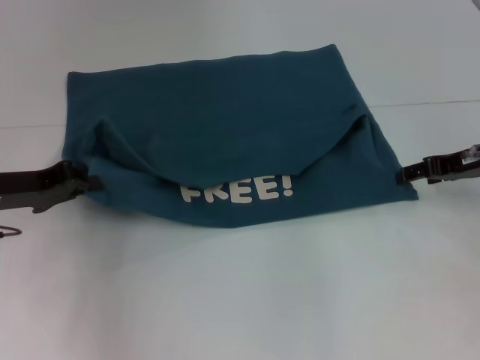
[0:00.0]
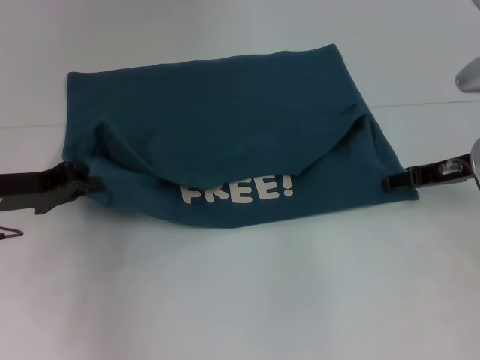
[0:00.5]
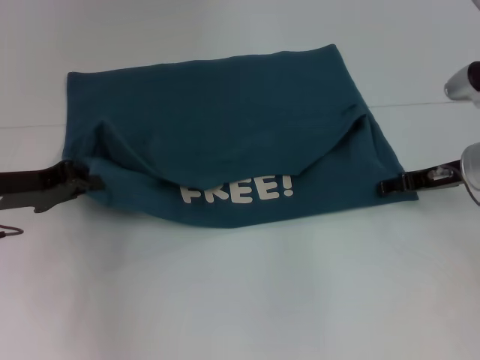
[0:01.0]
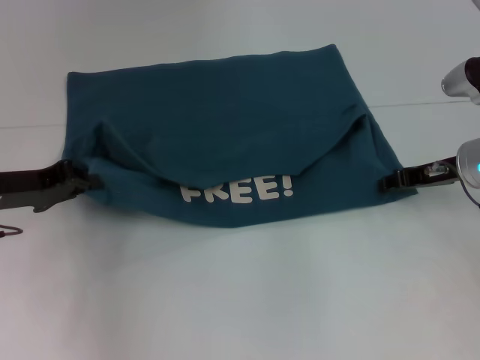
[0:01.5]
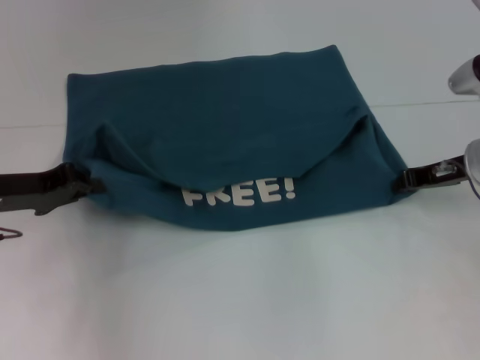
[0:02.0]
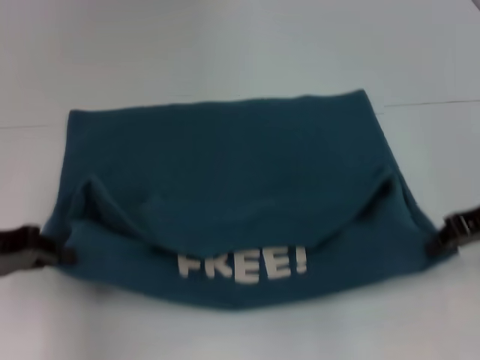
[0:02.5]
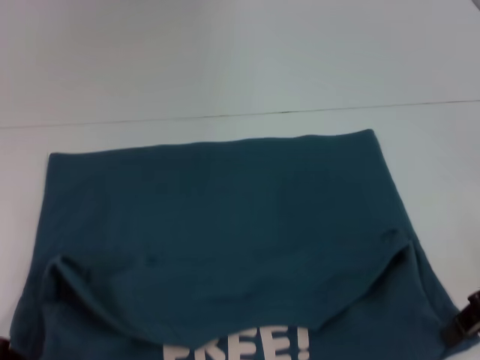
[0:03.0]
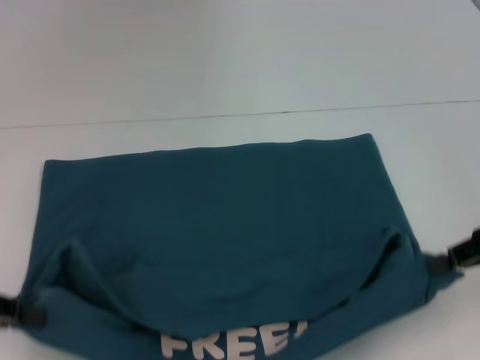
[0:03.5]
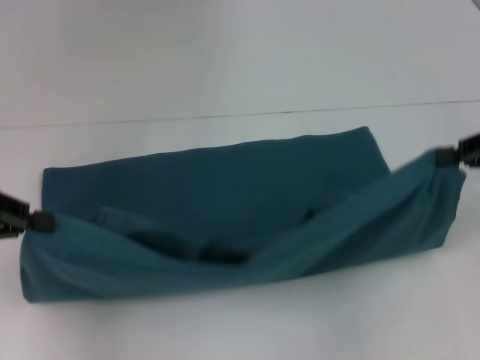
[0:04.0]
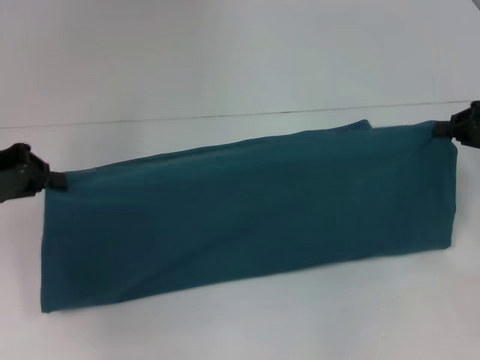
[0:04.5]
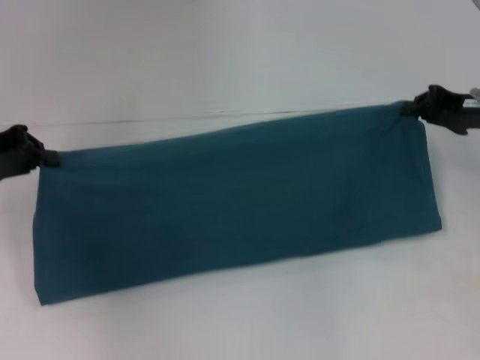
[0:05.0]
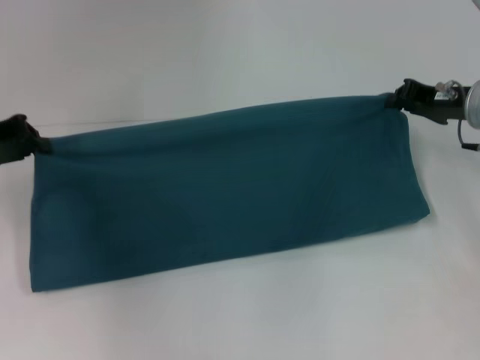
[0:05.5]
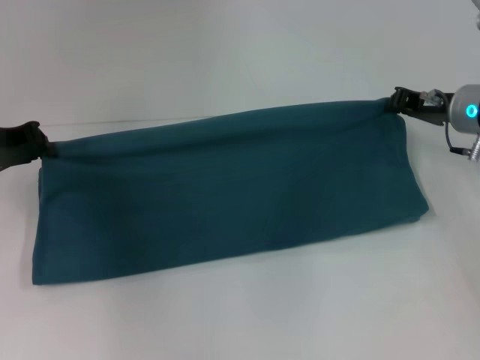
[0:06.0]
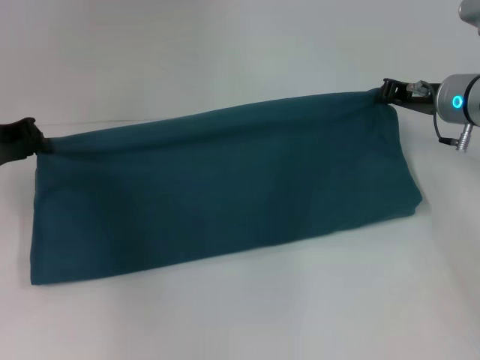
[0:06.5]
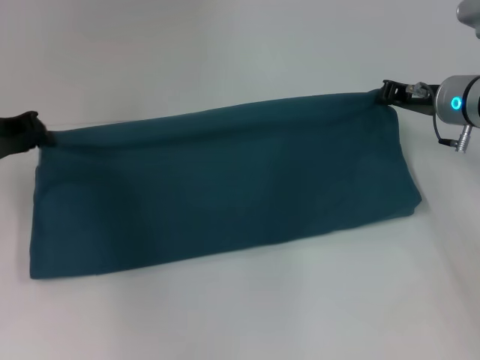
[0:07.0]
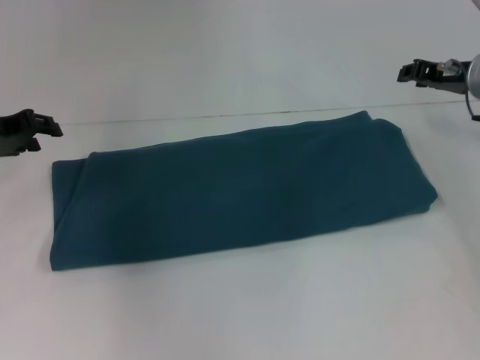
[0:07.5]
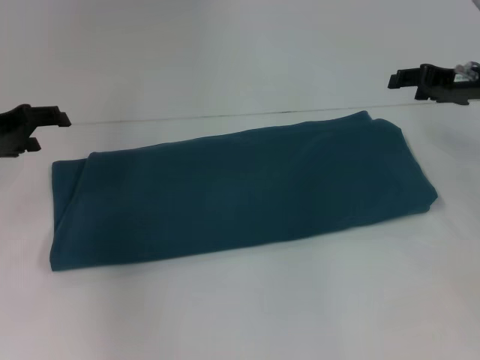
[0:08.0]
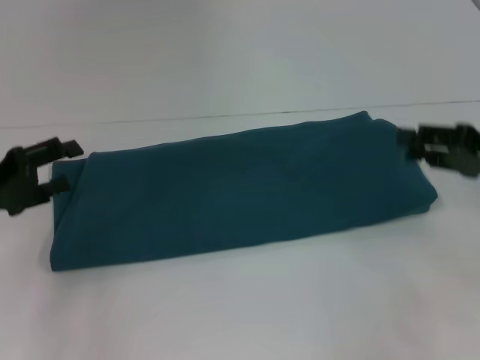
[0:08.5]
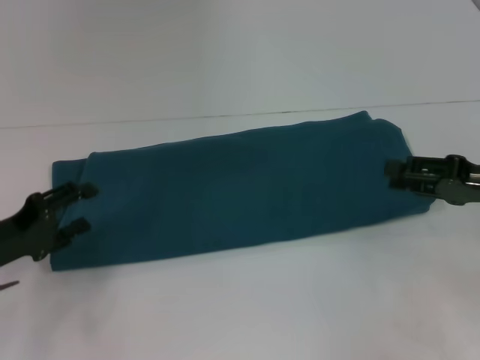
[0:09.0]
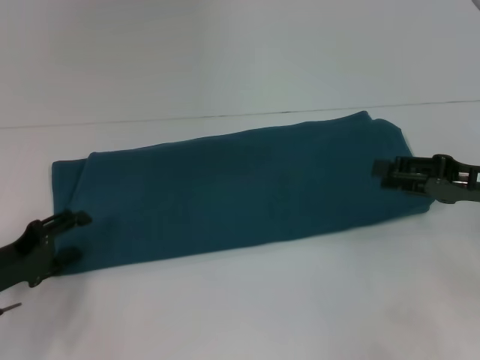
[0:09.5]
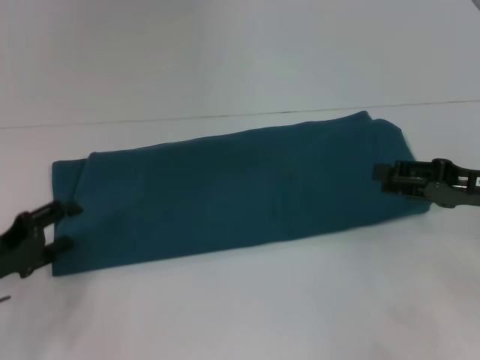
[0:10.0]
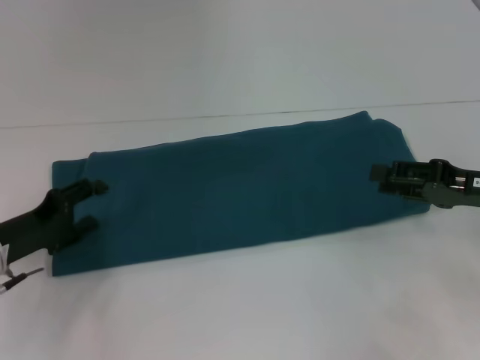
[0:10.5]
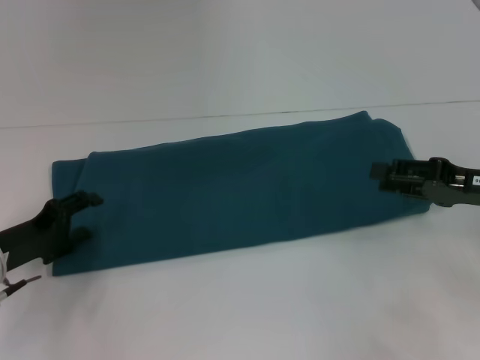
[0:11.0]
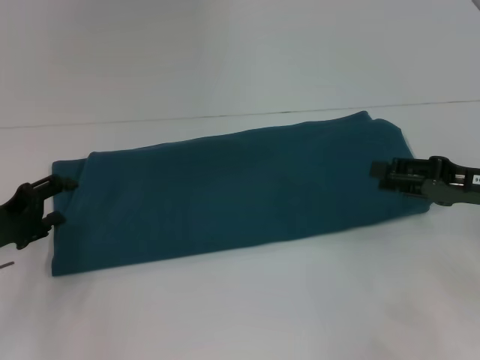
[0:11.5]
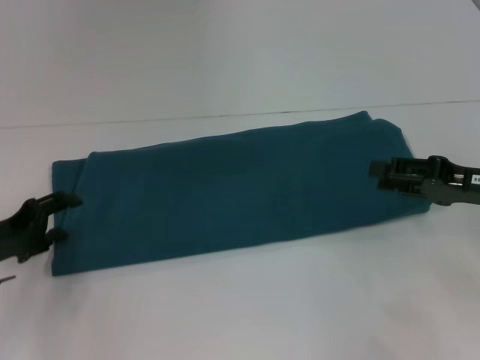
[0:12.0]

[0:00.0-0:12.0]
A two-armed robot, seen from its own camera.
Step, 0:00.0 to 0:03.0: Pull the clothes with your left hand.
Step, 0:00.0 to 0:03.0: Pull the clothes with your right hand.
Step, 0:03.5 to 0:07.5: Fold the clothes to the right.
0:00.0 to 0:02.0: The right gripper closes up.
0:02.0 to 0:04.0: The right gripper goes approximately 15 cm upward, to the right and backward; the left gripper moves upward, backward and to the left, roughly 10 cm.
0:04.0 to 0:06.0: The right gripper goes about 15 cm forward, to the left and downward. The left gripper moves forward, some 10 cm.
0:06.0 to 0:08.0: The right gripper moves some 5 cm, and opens up. Meanwhile the left gripper opens.
0:08.0 to 0:10.0: The grippers both shift backward and downward by approximately 15 cm.
0:10.0 to 0:12.0: There are only small adjustments of the grippers.

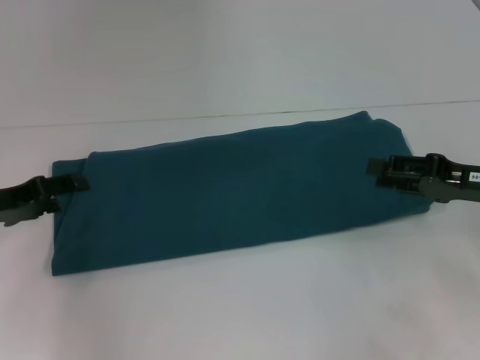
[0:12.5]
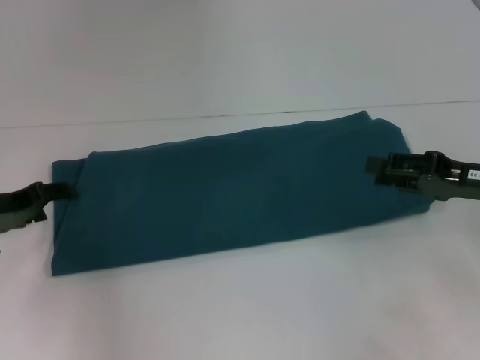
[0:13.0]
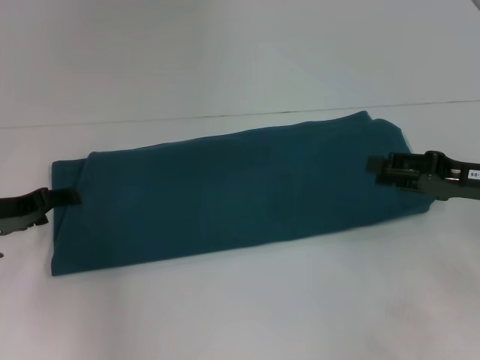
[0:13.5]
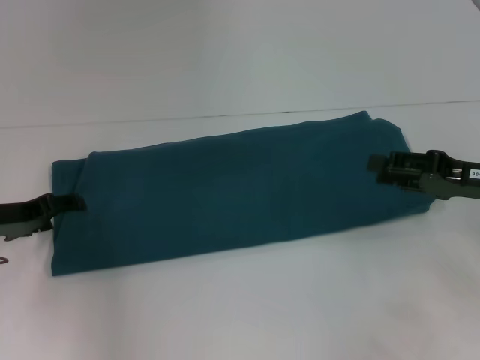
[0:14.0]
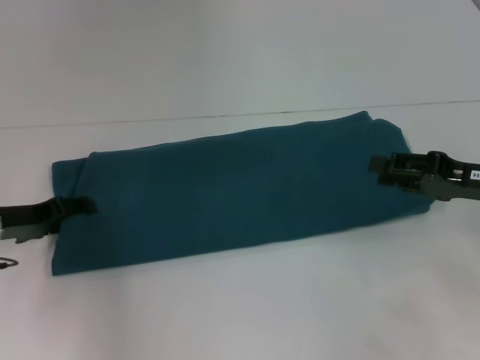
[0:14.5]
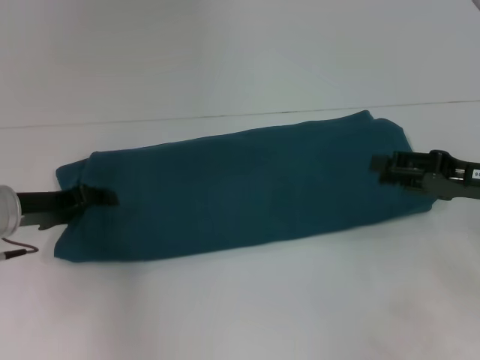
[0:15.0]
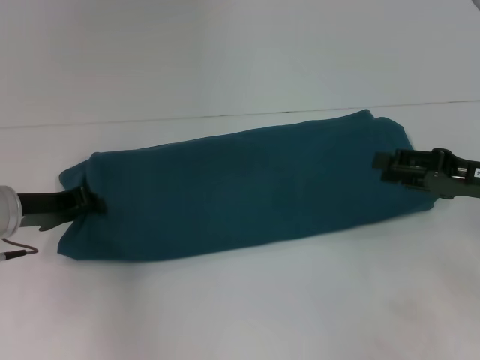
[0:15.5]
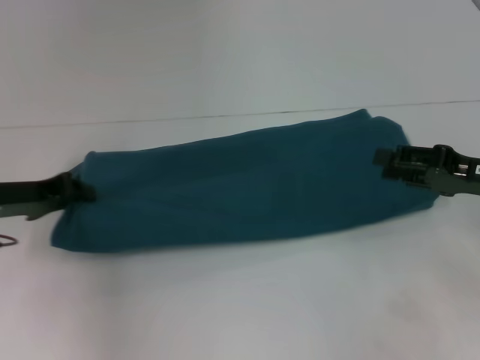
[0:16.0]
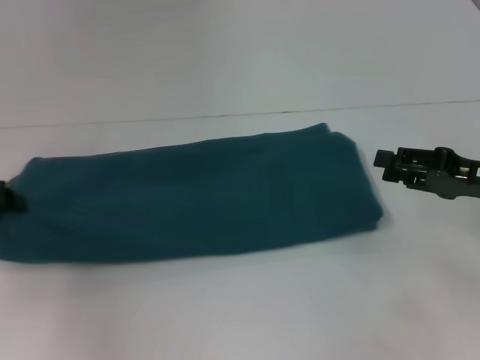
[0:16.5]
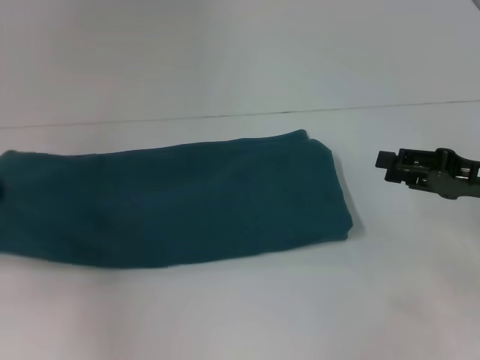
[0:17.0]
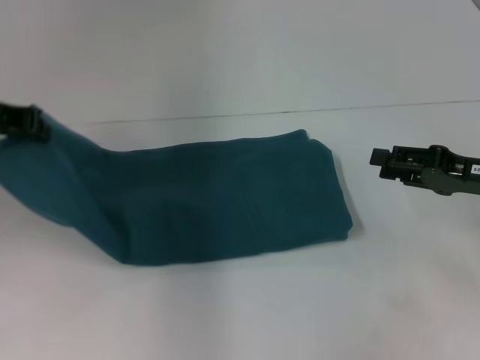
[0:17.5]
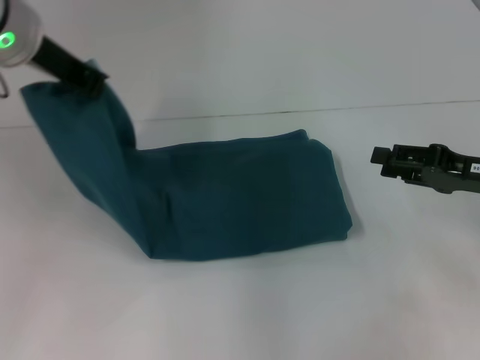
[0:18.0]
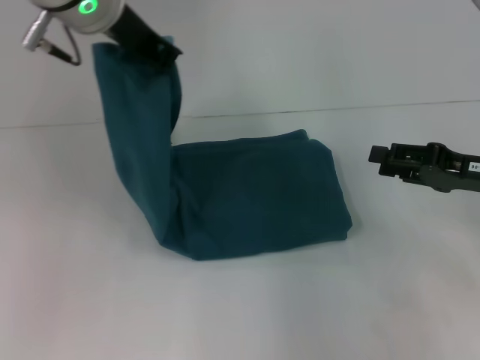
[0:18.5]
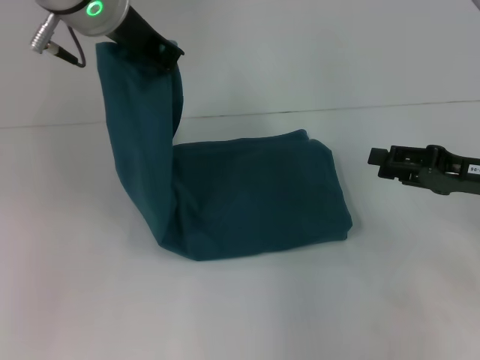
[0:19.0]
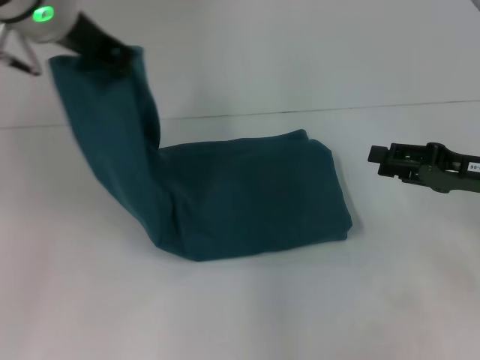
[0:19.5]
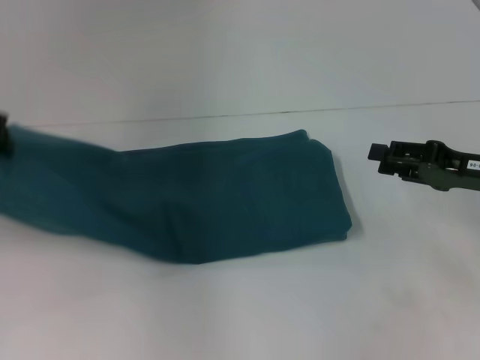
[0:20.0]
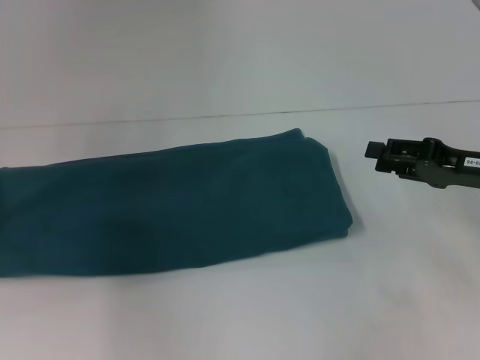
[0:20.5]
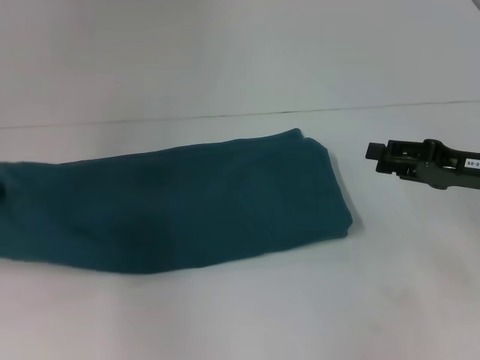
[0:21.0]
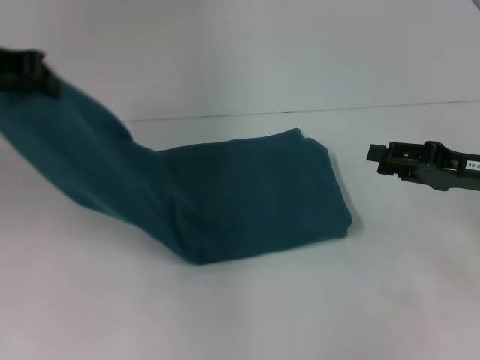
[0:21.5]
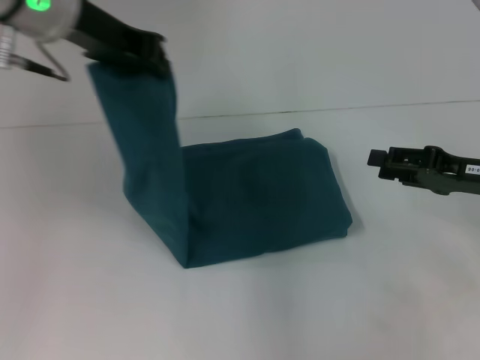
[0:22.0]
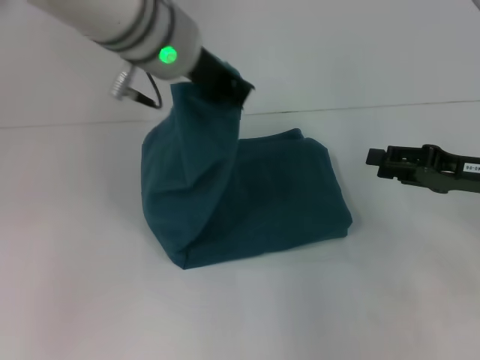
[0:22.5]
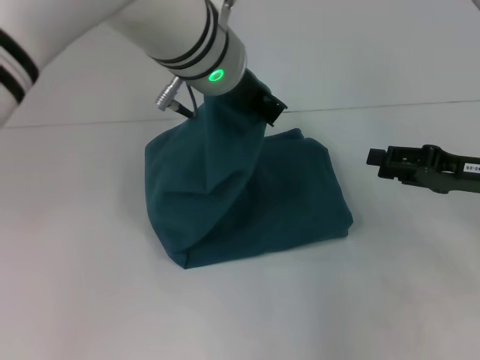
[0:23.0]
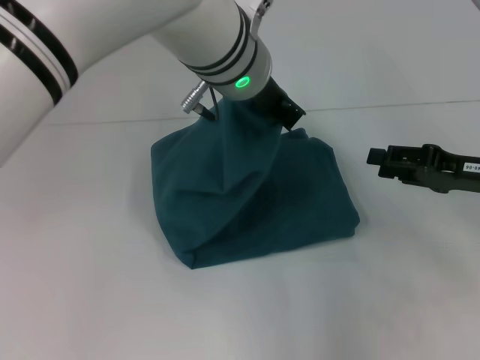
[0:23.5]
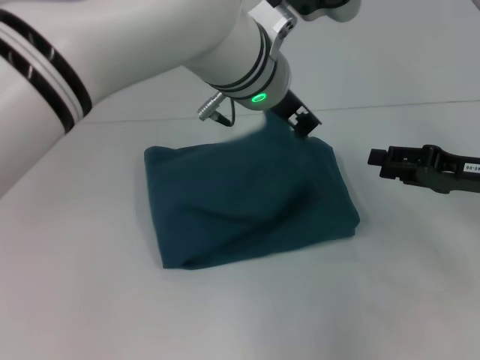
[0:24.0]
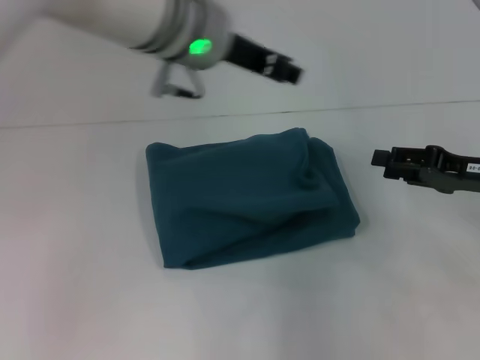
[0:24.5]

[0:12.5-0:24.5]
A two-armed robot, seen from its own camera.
0:12.5 to 0:14.5: The grippers stay close to where they were, moving slightly.
0:14.5 to 0:16.5: The left gripper is displaced to the left by approximately 5 cm, and closes up.
0:16.5 to 0:18.5: The left gripper shifts roughly 30 cm to the right and upward.
0:18.5 to 0:20.5: The left gripper goes approximately 30 cm to the left and downward.
0:20.5 to 0:22.5: The left gripper is displaced to the right and upward by some 30 cm.
0:22.5 to 0:24.5: The left gripper opens its fingers.

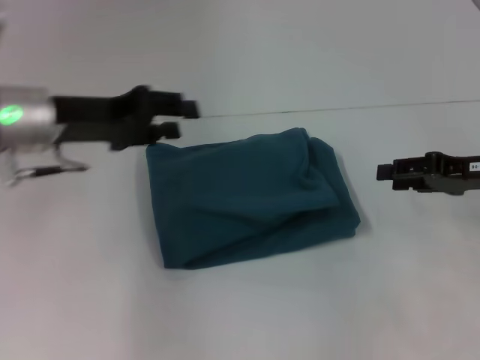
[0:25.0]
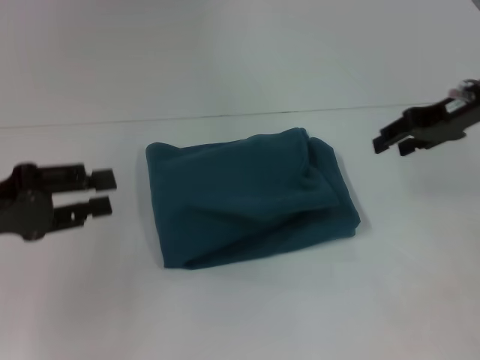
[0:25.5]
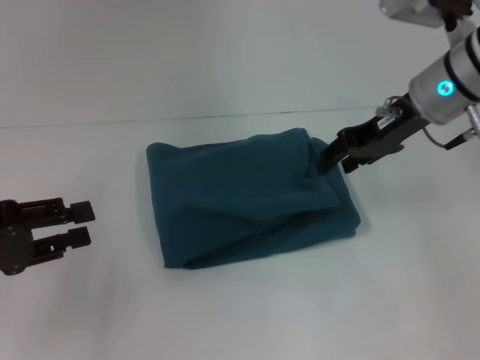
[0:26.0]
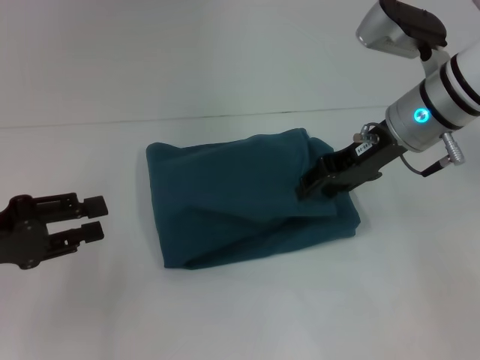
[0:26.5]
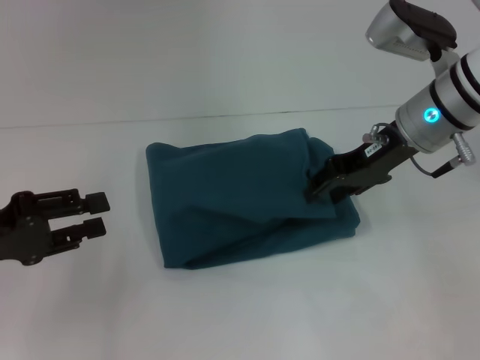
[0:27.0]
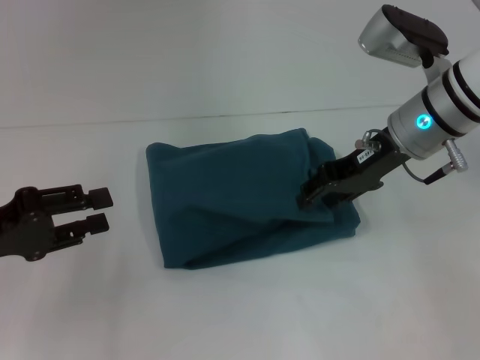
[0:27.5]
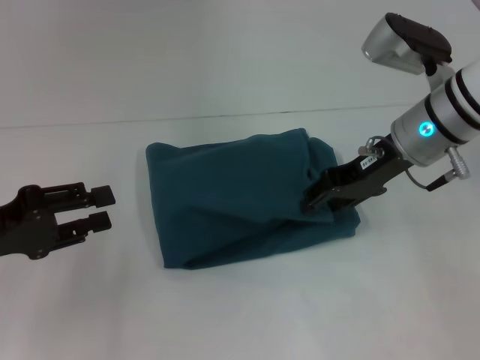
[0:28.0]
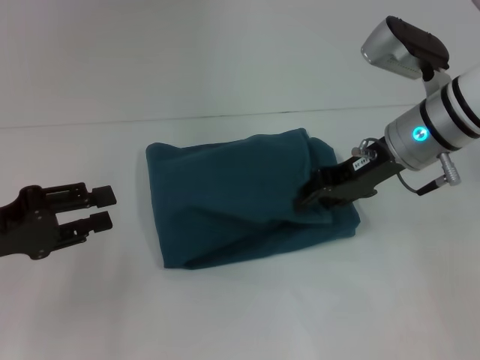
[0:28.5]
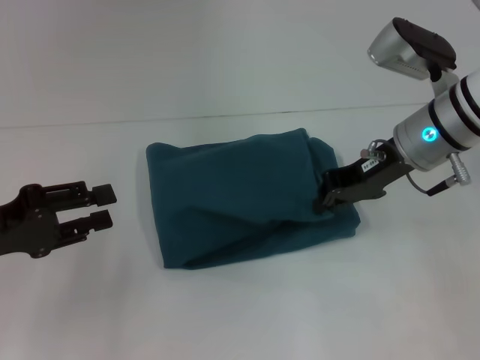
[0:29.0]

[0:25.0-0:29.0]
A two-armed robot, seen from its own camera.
0:25.0 to 0:27.0: The left gripper goes roughly 15 cm backward, to the left and downward. Meanwhile the right gripper shifts some 15 cm to the left and forward.
0:27.0 to 0:29.0: The right gripper closes.
